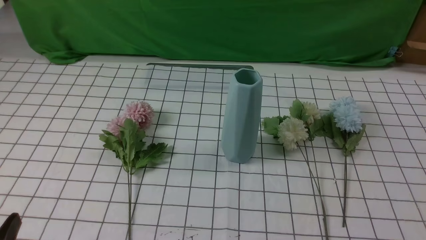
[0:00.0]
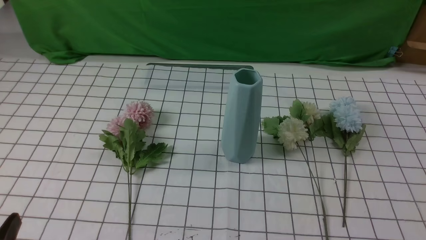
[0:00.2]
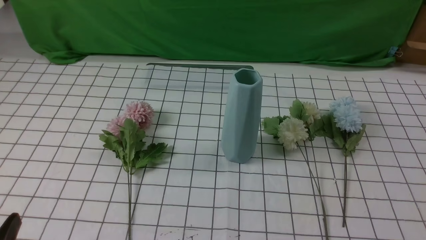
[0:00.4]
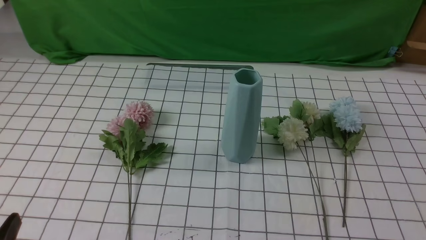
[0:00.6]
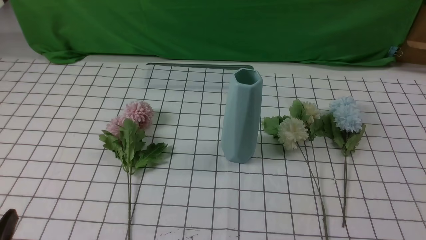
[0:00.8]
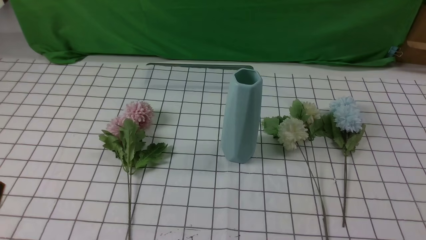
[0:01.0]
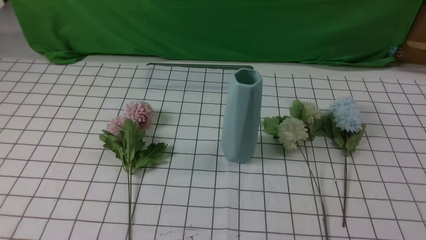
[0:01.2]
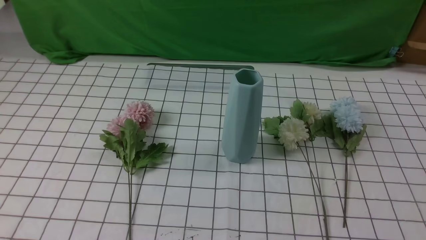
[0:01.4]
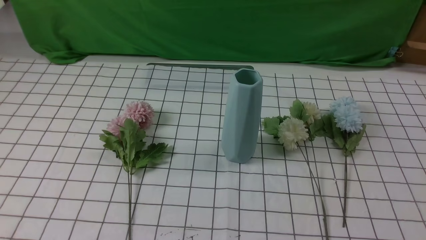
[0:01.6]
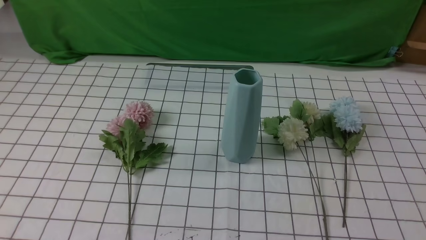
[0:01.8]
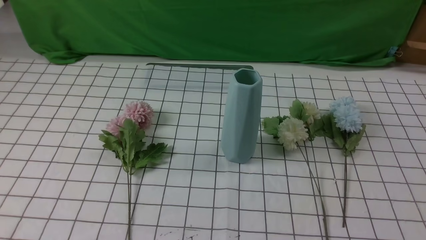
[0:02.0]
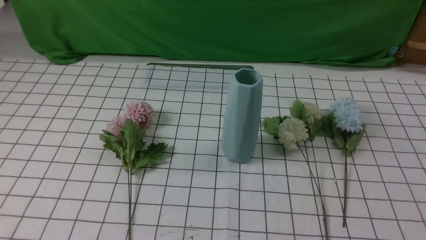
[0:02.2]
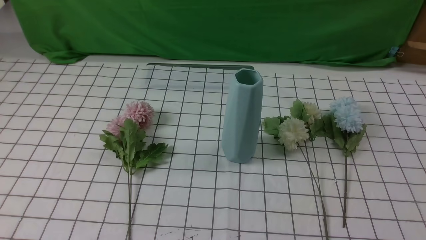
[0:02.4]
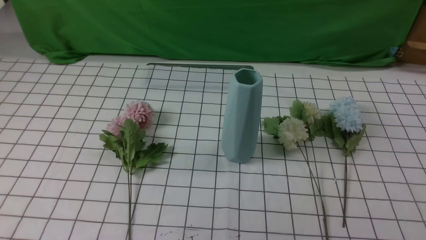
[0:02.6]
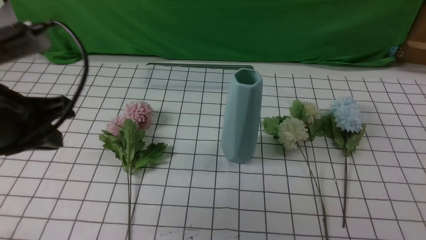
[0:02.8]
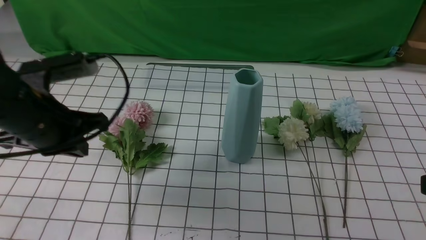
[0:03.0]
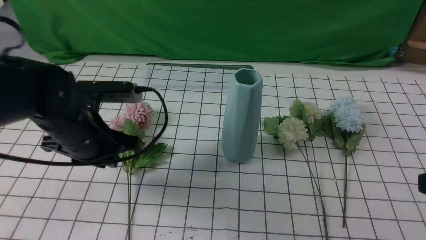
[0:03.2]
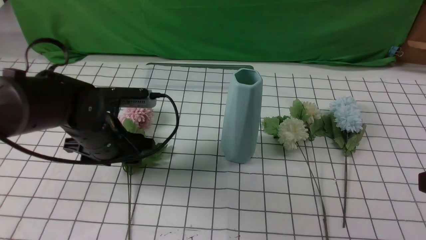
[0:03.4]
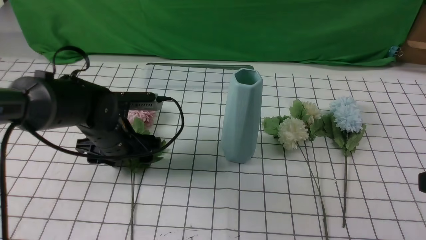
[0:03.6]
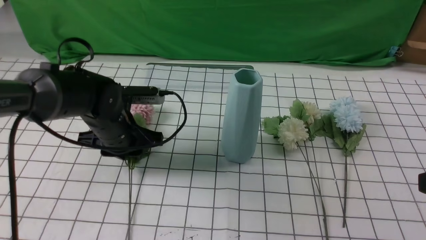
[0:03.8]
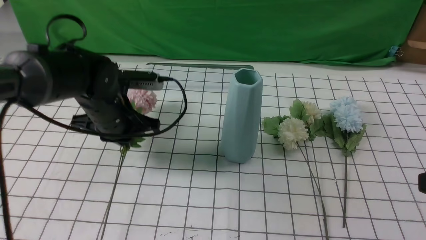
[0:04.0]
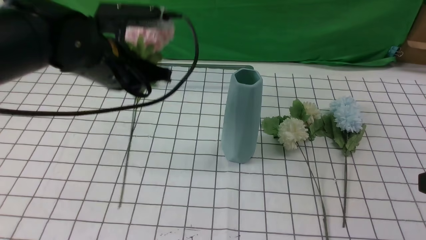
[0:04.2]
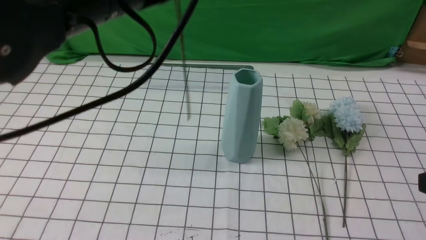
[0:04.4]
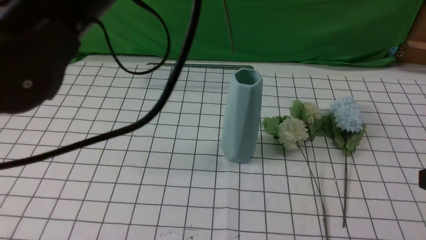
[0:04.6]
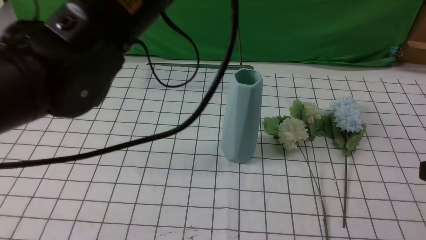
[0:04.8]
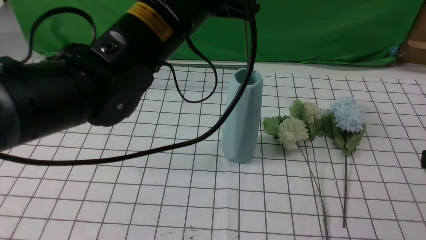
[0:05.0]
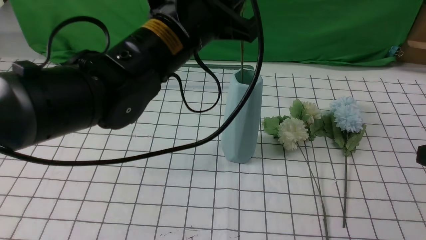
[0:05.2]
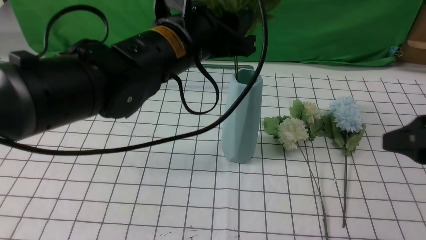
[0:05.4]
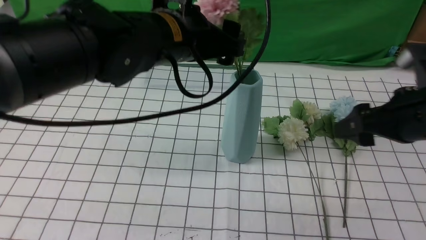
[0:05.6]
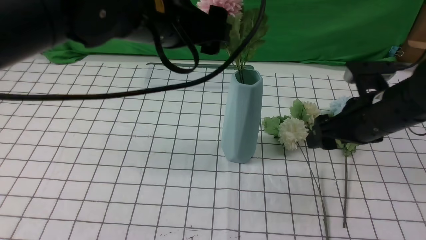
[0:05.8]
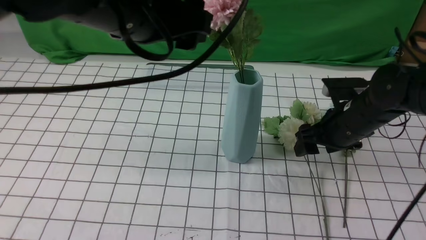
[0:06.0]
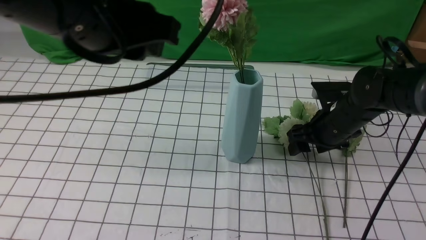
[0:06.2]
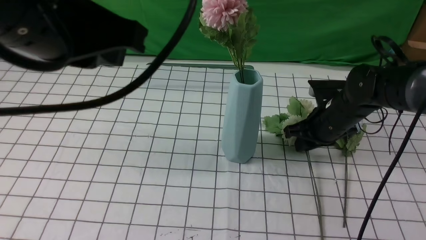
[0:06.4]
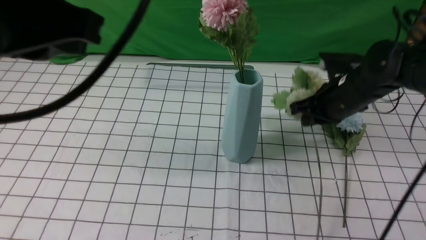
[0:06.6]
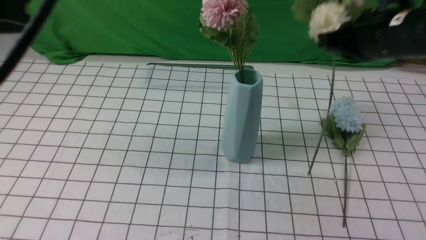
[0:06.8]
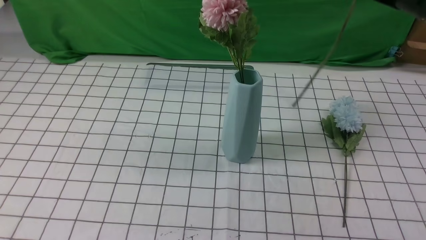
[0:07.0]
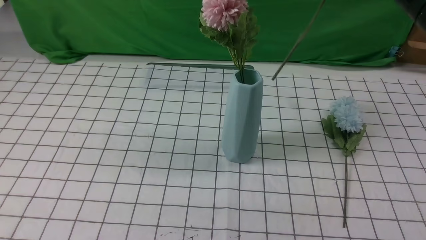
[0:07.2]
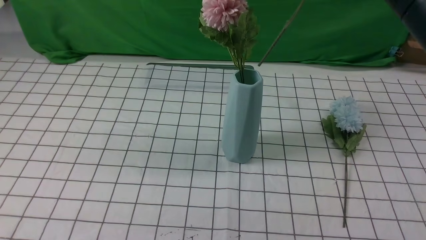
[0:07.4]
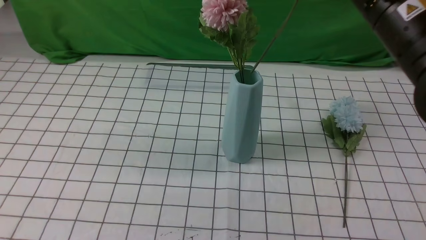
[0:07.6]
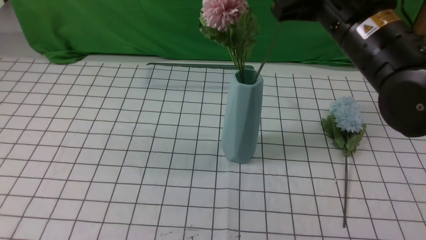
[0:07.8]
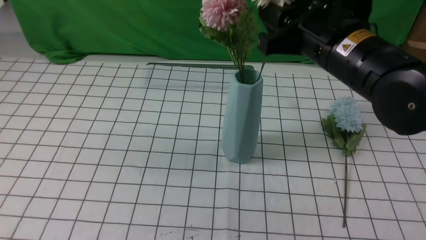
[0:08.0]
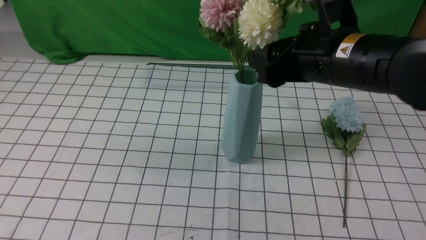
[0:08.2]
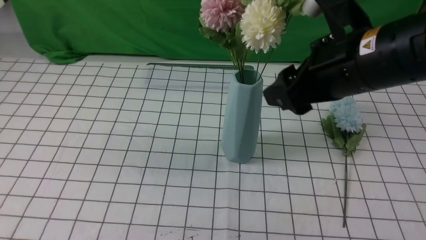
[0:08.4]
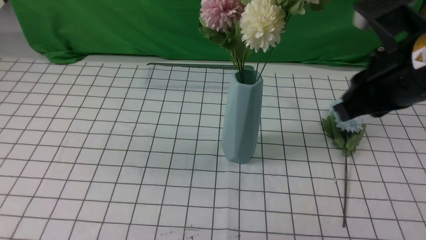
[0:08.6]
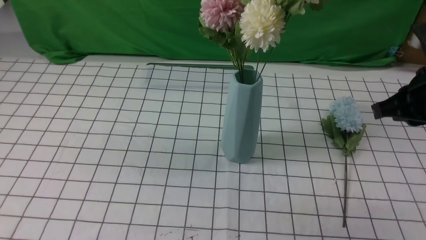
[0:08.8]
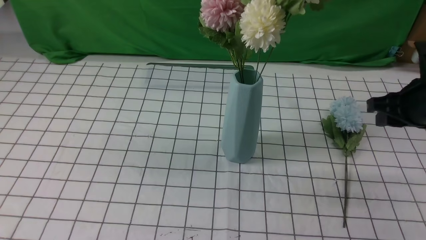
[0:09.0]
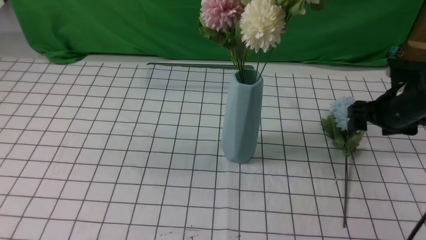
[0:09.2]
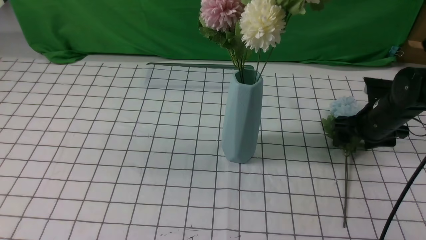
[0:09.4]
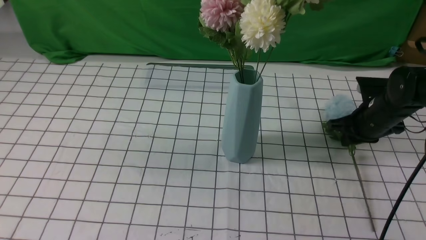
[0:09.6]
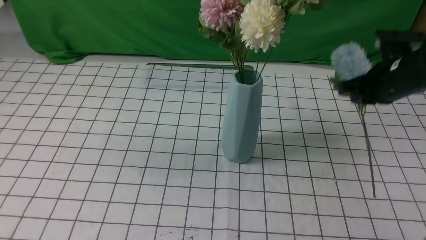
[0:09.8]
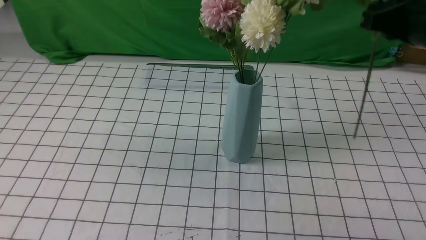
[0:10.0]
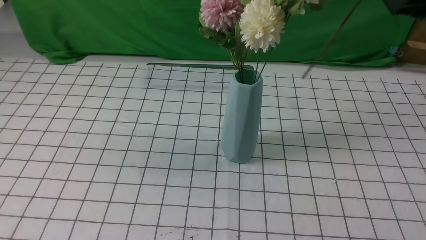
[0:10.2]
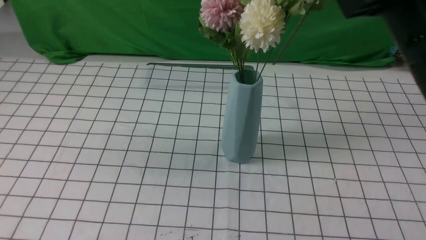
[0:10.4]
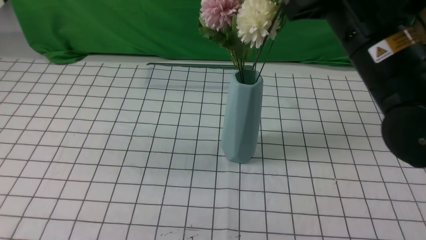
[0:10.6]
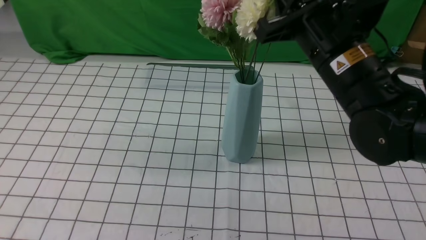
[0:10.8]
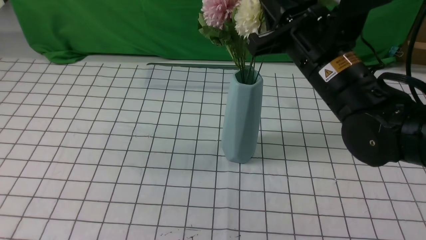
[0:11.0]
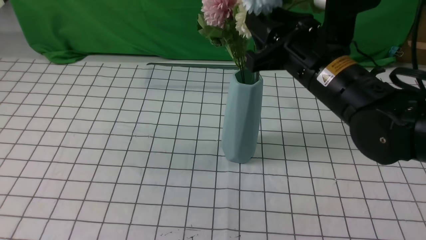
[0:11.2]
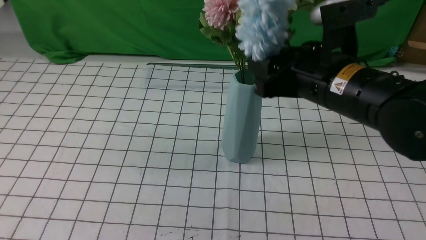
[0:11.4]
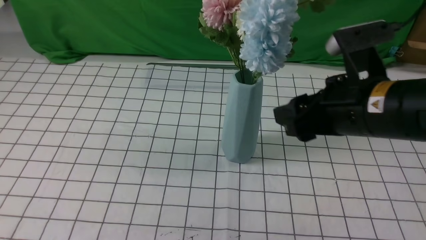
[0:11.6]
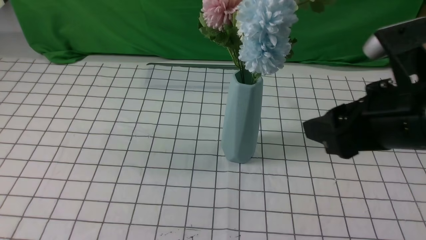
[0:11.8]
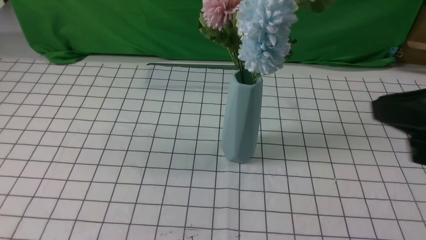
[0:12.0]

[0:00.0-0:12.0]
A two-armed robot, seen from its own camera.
Task of the whole recording: insert the flowers into the vase on the table with the white tablecloth.
Step, 0:00.0 to 0:03.8: use the left arm to grab a bunch of fresh flowers.
Step, 0:04.0 to 0:05.6: use the left arm to insert the flowers into the vase.
Step, 0:05.8 to 0:06.4: use the right arm to grab a bunch of fresh flowers.
Step, 0:06.6 to 0:08.2: use the right arm to insert the flowers into the vase.
Step, 0:08.4 to 0:09.6: use the right arm to grab a bunch of fresh flowers.
Step, 0:09.8 to 0:11.4: use the right arm to insert the flowers into the vase.
0:01.6 to 0:03.0: The left gripper heads forward, covering roughly 25 cm; the right gripper moves upward and forward, about 15 cm.
0:03.0 to 0:04.4: The left gripper travels upward and to the right by roughly 20 cm, and opens, then closes once more.
0:04.4 to 0:06.0: The left gripper goes downward and returns, about 5 cm each way, and opens. Meanwhile the right gripper shifts roughly 25 cm forward and downward, and opens.
0:06.0 to 0:07.6: The left gripper shifts roughly 20 cm backward, to the left and upward, and closes up. Meanwhile the right gripper is displaced upward by some 20 cm, and closes its fingers.
0:07.6 to 0:09.0: The right gripper moves downward and to the right, roughly 20 cm, and opens its fingers.
0:09.0 to 0:10.4: The right gripper travels upward, to the left and backward by about 20 cm, and closes.
0:10.4 to 0:12.0: The right gripper travels backward and to the right by roughly 15 cm, and opens and closes again.

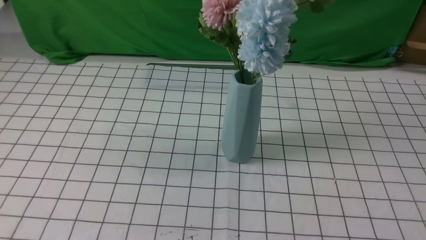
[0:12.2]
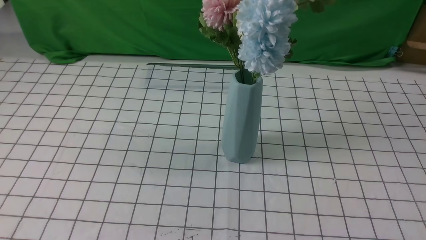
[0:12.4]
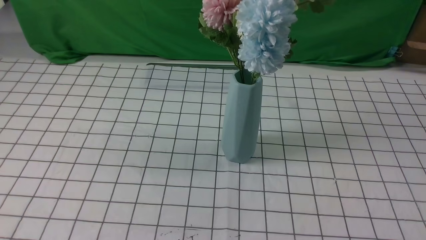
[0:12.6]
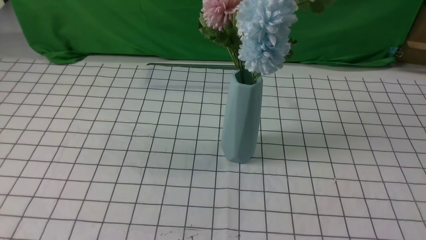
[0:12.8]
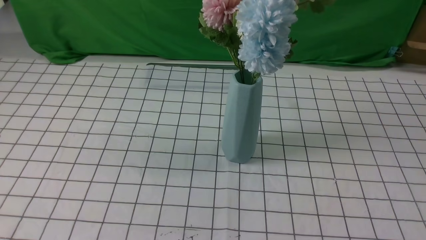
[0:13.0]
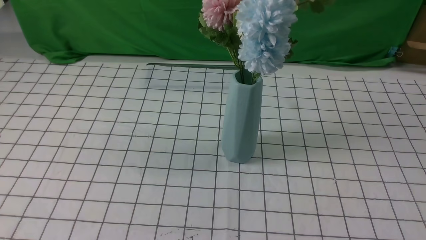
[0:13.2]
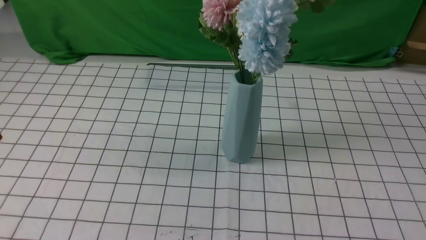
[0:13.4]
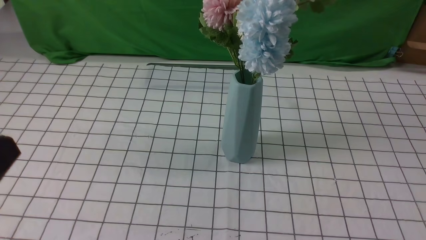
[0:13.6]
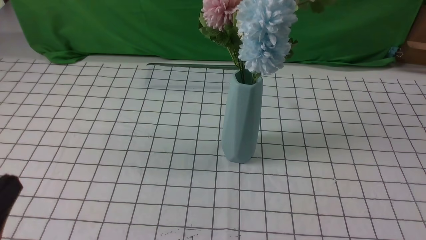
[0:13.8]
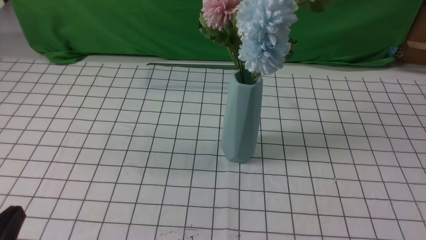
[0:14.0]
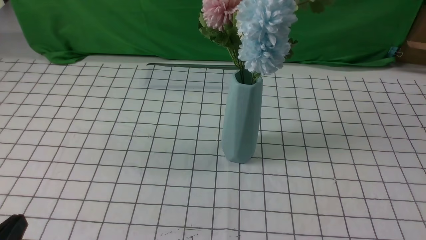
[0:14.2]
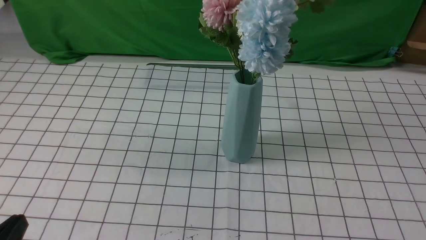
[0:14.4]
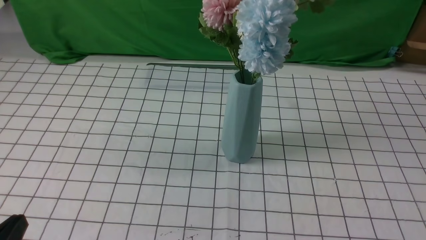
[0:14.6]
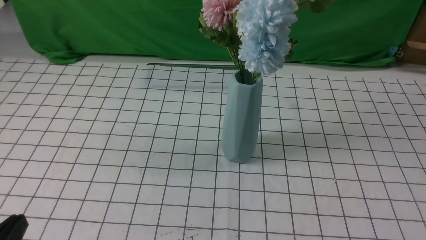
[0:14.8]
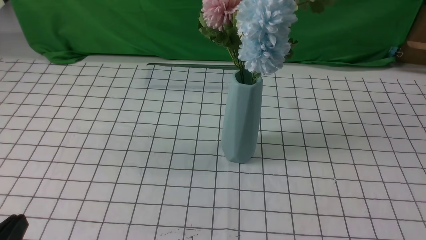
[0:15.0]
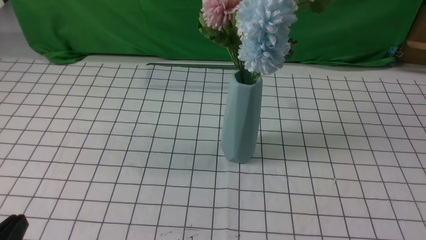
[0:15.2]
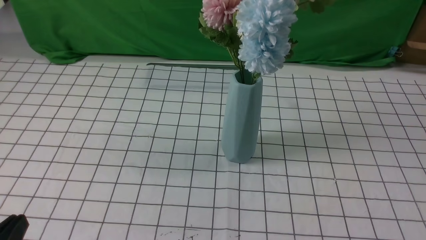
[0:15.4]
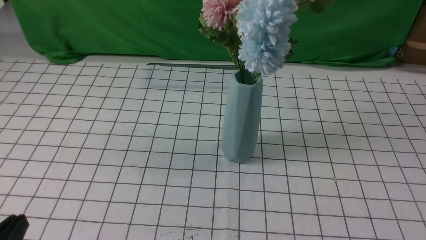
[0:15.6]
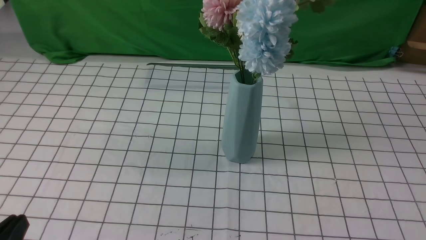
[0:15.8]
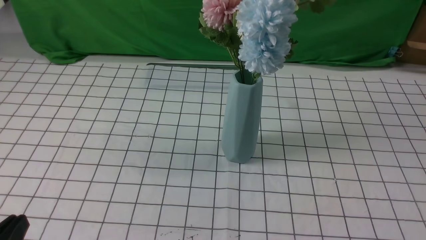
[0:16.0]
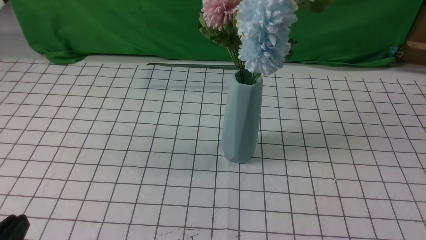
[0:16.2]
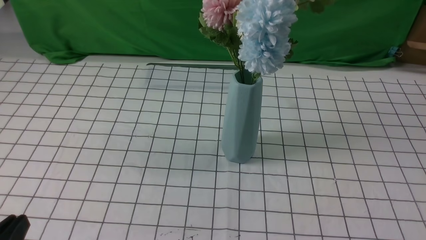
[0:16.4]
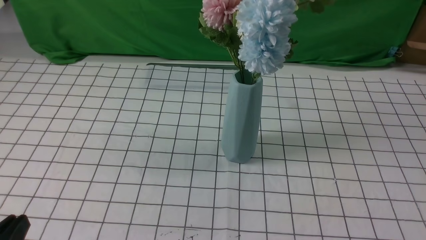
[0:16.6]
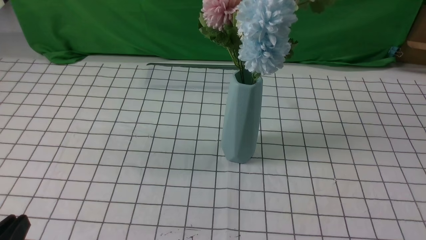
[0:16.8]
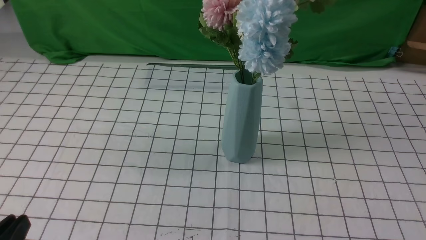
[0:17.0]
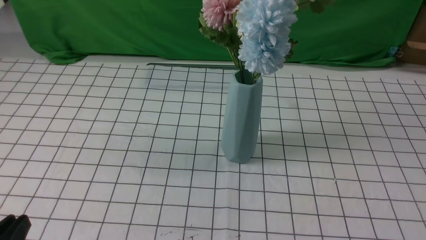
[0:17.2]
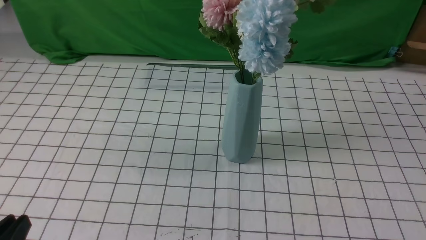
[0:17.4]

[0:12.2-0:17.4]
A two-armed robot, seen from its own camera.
Task of the whole recording: insert the flowers into the vase on the table with the white tablecloth.
0:12.2 to 0:14.0: The left gripper heads downward, covering about 25 cm.
